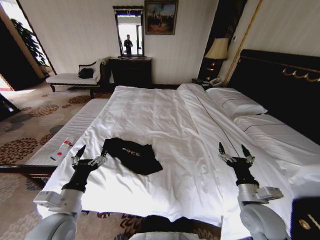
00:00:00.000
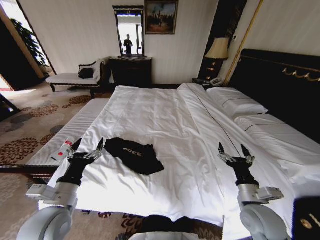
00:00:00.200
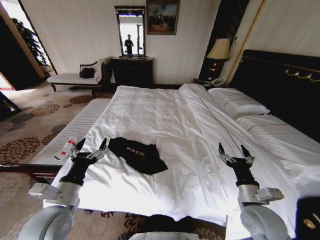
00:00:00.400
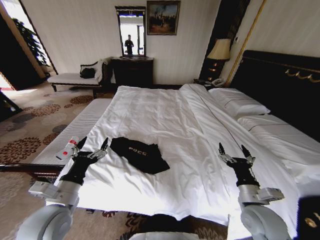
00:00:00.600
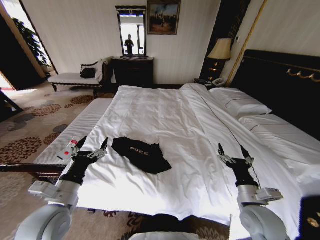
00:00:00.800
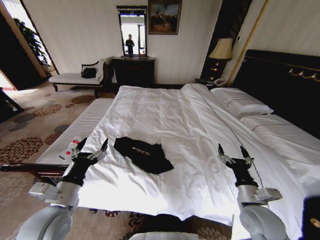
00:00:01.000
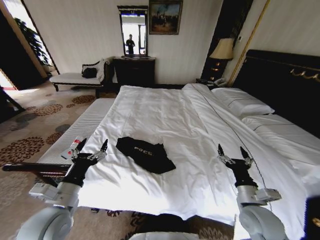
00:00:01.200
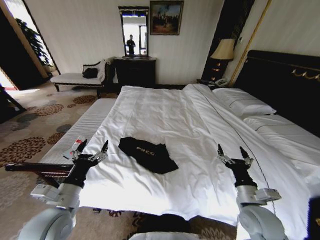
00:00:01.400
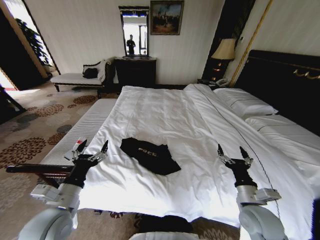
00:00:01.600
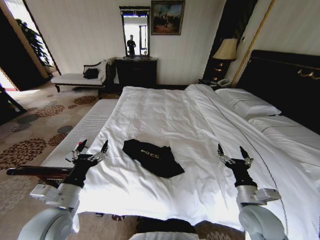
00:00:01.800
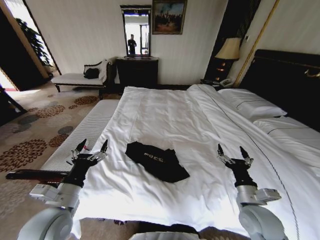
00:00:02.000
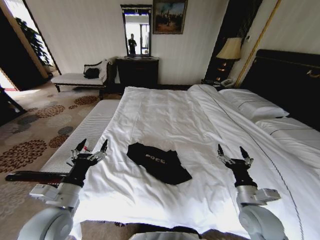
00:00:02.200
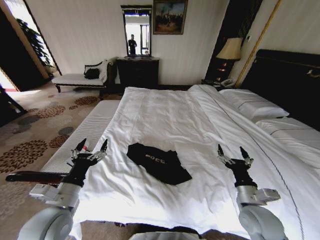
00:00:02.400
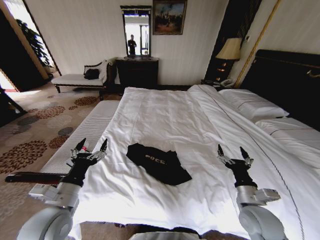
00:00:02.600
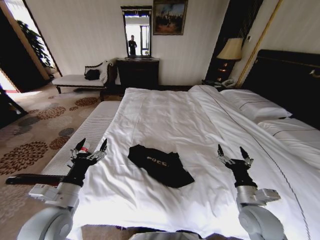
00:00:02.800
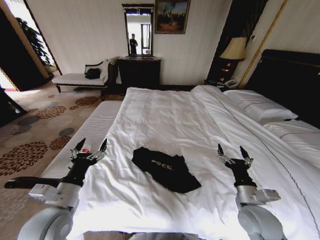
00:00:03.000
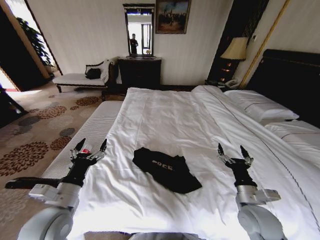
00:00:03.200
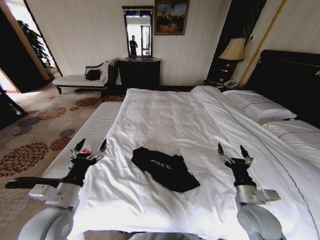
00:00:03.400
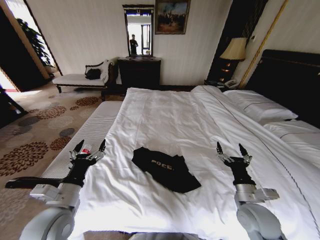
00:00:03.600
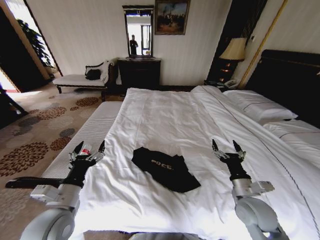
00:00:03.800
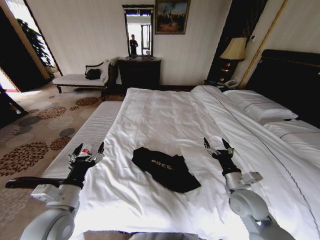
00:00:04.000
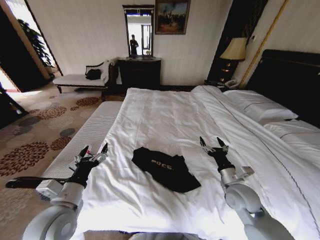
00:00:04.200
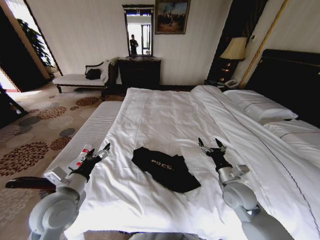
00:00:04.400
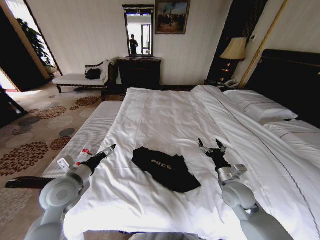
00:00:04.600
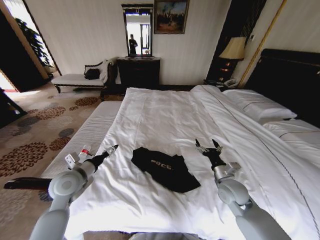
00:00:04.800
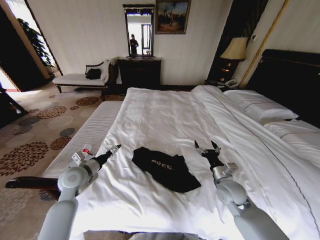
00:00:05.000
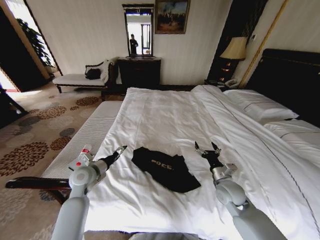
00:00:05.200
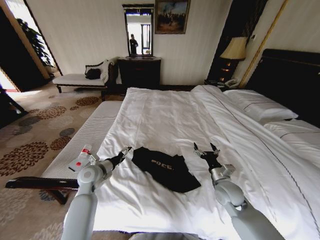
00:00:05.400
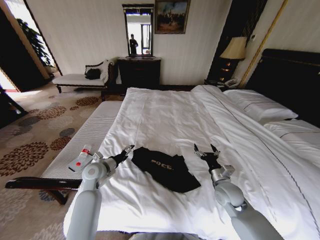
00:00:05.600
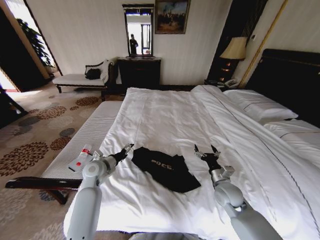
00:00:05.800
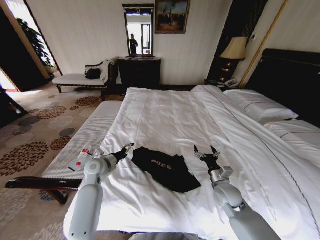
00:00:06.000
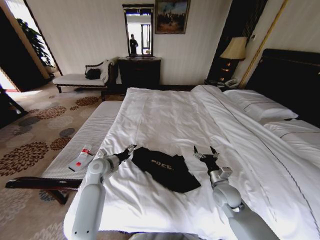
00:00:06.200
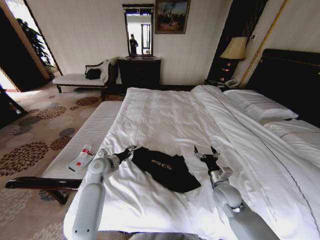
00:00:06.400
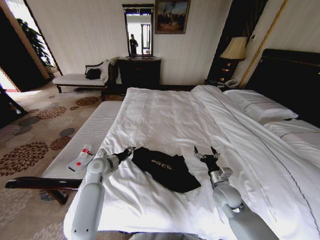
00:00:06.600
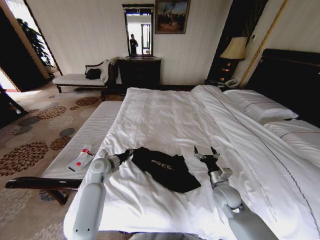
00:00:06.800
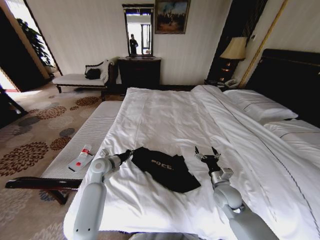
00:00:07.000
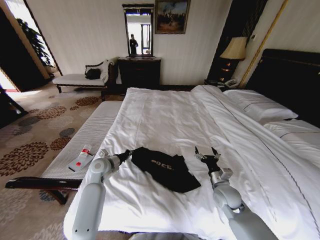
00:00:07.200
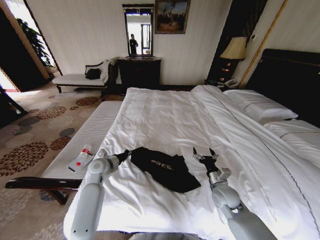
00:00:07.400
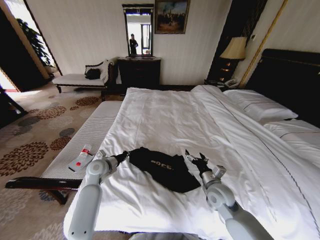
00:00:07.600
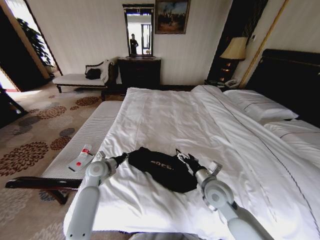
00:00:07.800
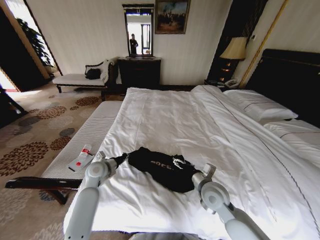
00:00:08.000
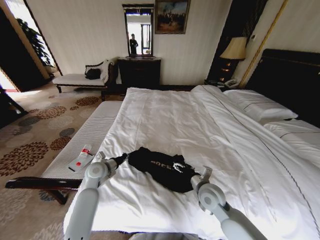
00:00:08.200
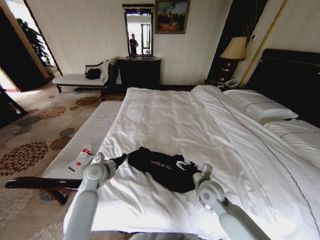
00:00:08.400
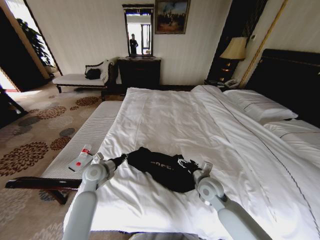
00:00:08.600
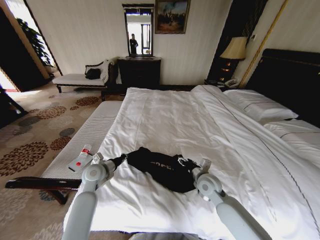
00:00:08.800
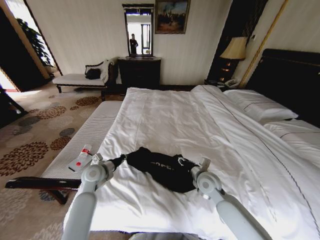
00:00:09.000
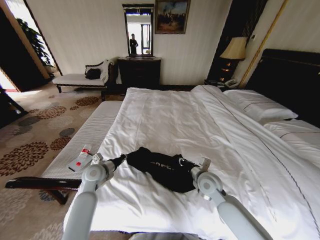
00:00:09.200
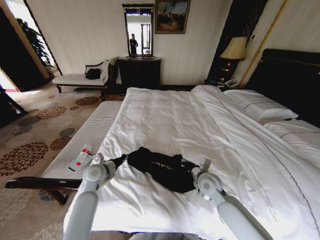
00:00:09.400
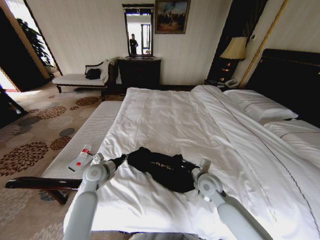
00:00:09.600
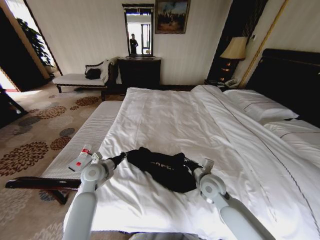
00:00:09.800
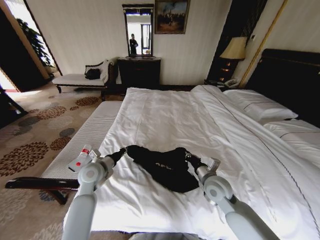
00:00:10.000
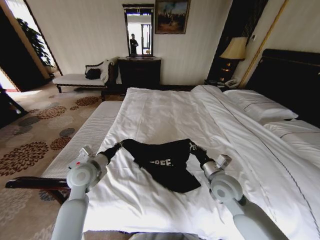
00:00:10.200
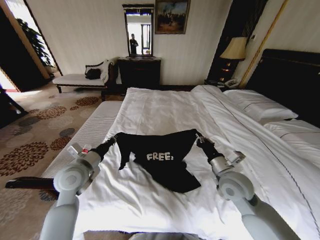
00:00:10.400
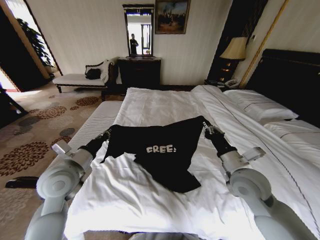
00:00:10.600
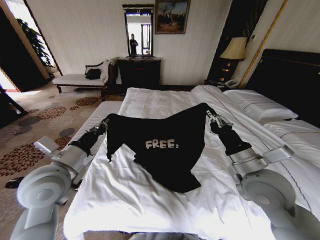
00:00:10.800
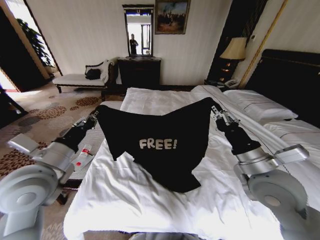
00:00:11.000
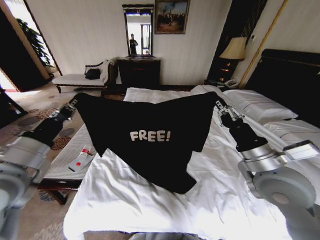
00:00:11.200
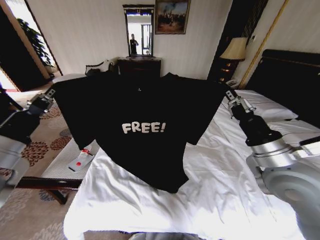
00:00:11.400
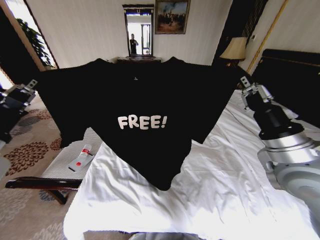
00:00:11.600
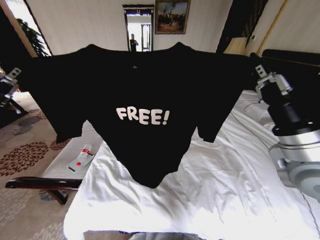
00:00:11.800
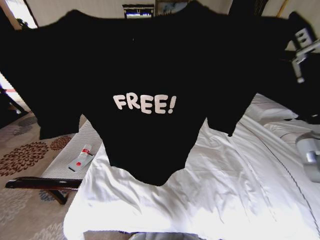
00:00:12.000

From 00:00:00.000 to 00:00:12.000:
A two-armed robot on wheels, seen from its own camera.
Task of the whole recording: Fold the clothes on the bed.
From 00:00:03.000 to 00:00:04.400: The right gripper shifts some 10 cm forward.
From 00:00:04.400 to 00:00:06.000: The right gripper shifts approximately 5 cm downward, while the left gripper travels forward and downward by about 20 cm.
From 00:00:06.000 to 00:00:07.600: The left gripper closes its fingers.
From 00:00:07.600 to 00:00:09.000: The right gripper ends up some 5 cm from where it was, and closes its fingers.
From 00:00:09.000 to 00:00:10.400: The left gripper shifts approximately 10 cm upward and backward; the right gripper goes about 10 cm upward, and closes up.
From 00:00:10.400 to 00:00:12.000: The right gripper heads upward, covering approximately 20 cm. Meanwhile the left gripper travels upward, backward and to the left by approximately 25 cm.

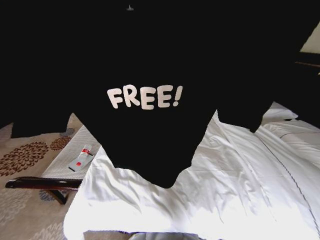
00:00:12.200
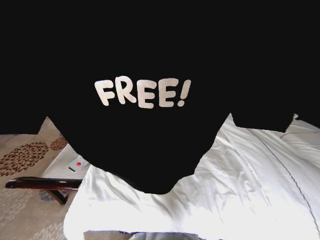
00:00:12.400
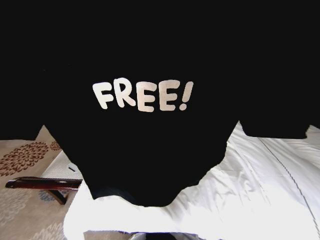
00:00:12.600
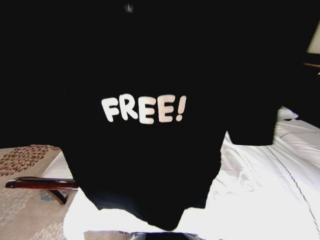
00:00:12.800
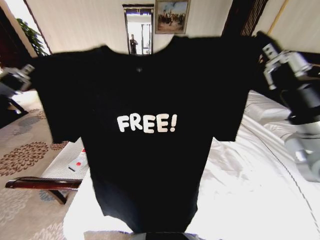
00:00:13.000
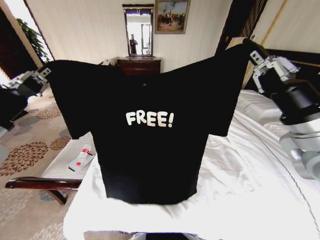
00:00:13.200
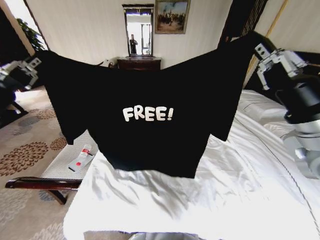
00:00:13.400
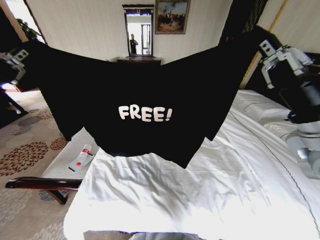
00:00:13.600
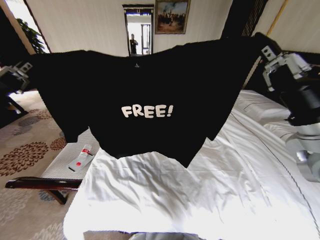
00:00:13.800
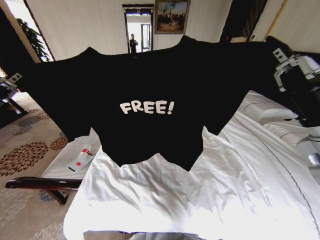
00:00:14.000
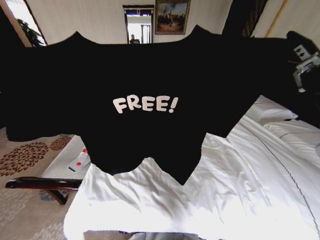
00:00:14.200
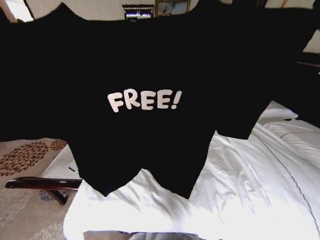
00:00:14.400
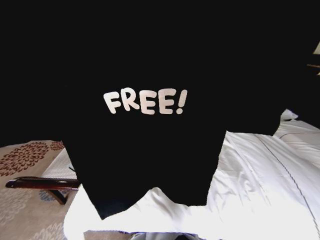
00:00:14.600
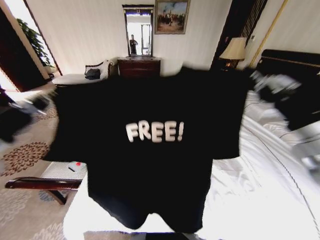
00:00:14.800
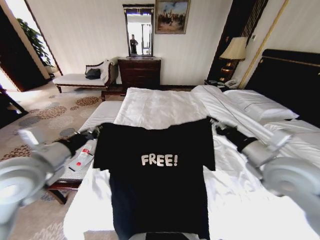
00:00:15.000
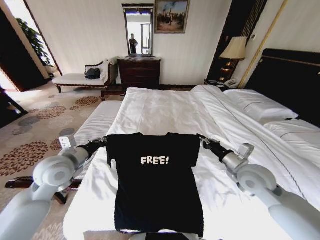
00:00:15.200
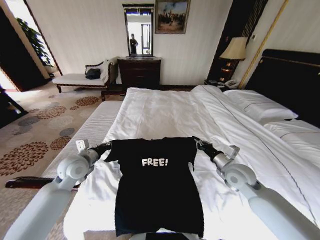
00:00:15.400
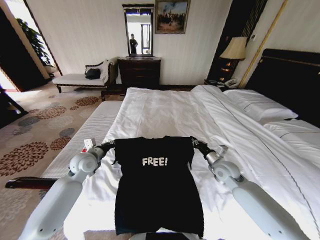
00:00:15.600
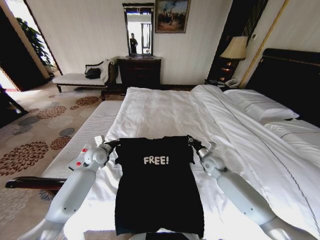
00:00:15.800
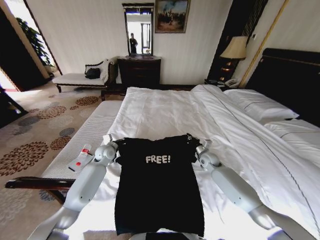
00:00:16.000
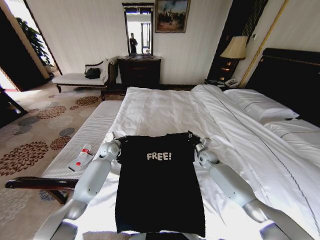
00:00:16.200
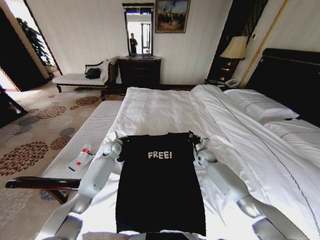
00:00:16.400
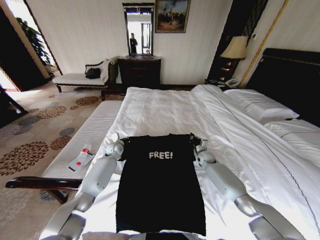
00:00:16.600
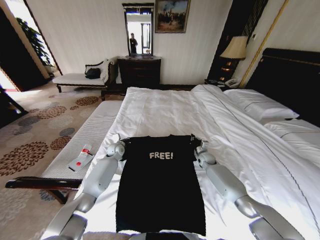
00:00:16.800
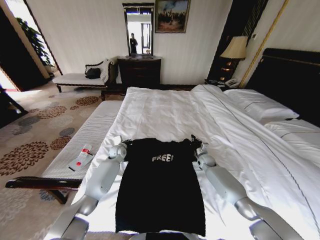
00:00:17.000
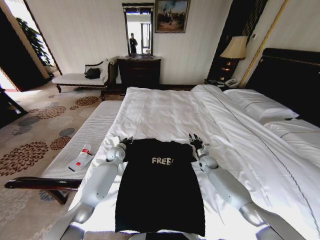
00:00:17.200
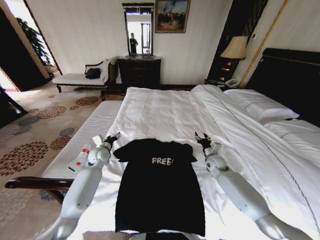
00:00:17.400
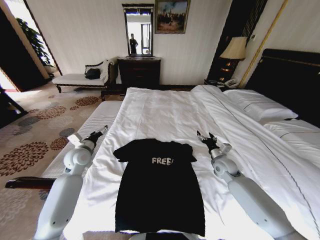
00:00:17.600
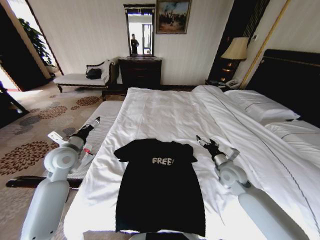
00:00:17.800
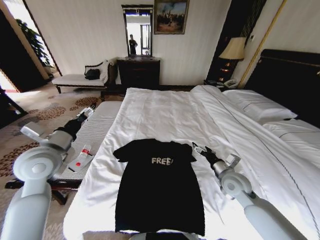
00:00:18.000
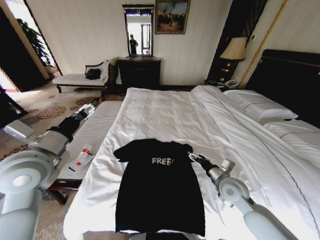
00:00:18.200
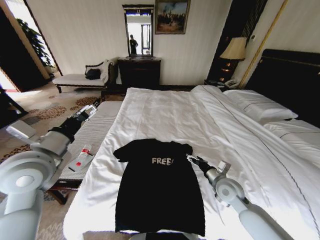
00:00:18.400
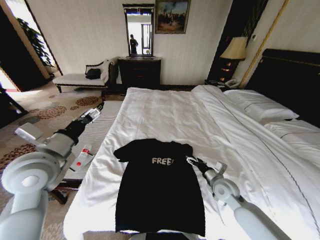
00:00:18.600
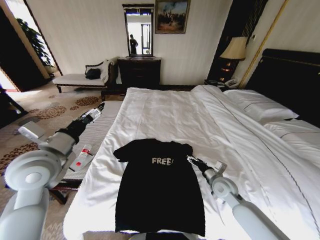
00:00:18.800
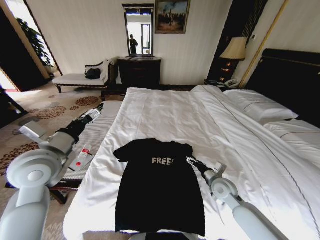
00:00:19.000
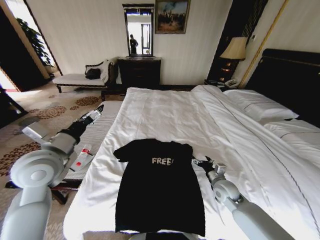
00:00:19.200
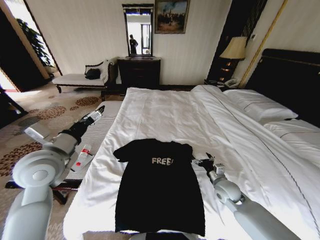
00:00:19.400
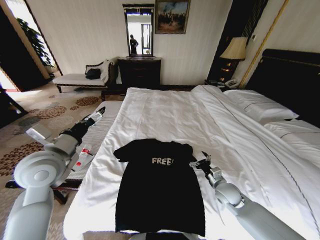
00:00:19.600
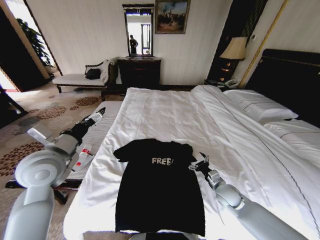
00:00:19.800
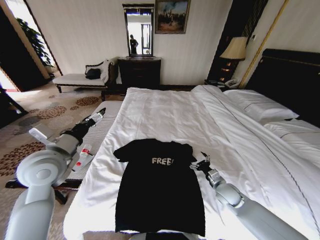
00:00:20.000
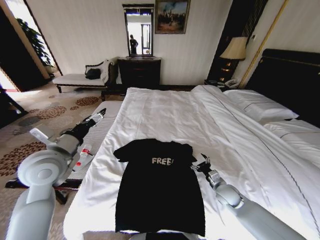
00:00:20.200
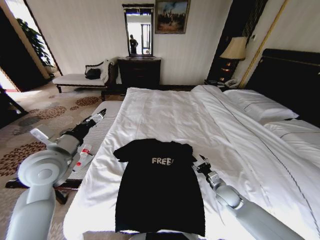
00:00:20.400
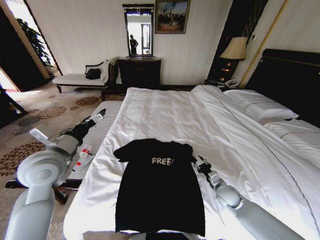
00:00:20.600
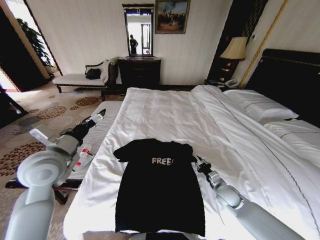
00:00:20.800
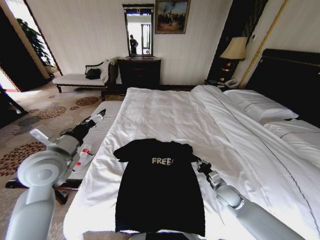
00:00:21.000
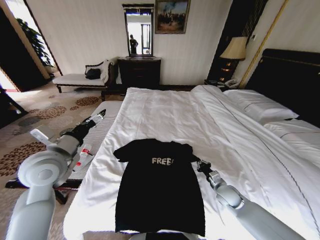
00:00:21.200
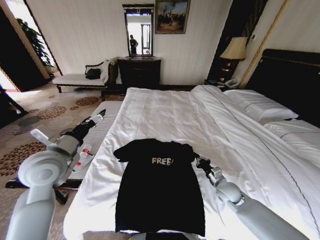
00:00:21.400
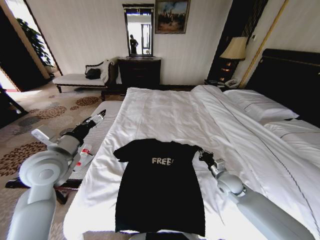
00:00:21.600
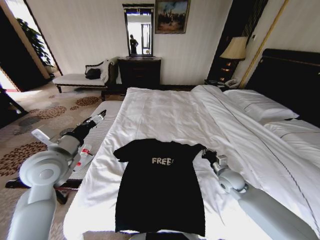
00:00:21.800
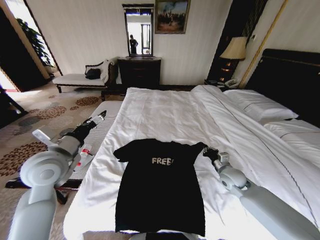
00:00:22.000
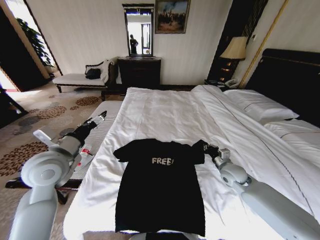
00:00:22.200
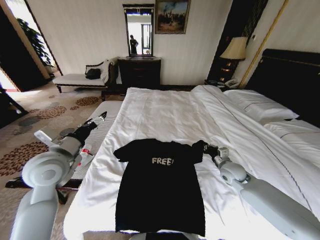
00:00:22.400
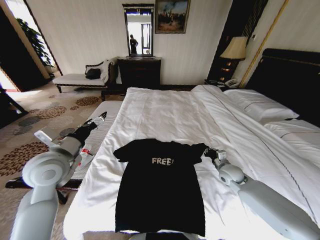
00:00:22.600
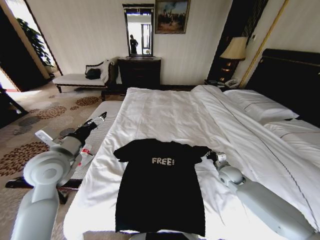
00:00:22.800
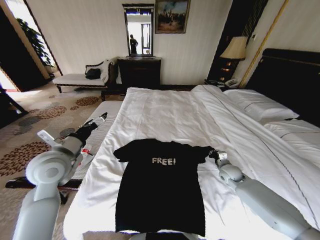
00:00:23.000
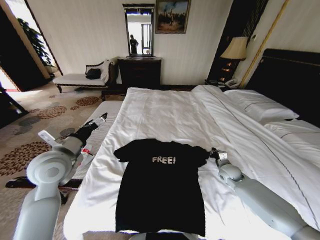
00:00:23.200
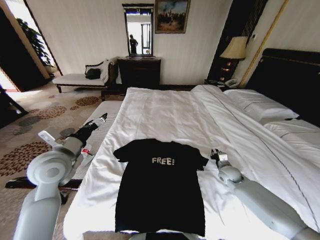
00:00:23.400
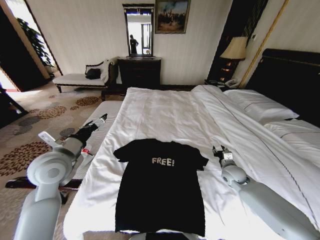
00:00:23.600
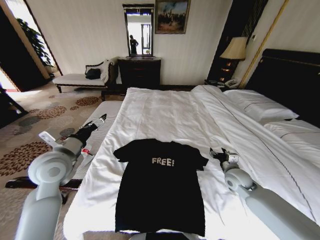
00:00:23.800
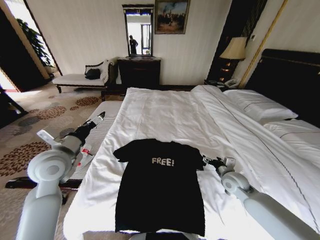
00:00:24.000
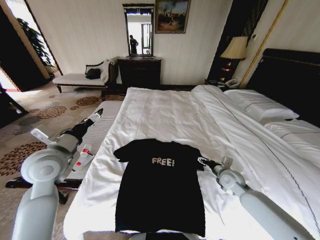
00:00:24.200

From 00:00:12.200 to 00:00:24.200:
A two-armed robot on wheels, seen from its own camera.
Task of the whole recording: Fold the clothes on the bed.
From 00:00:13.800 to 00:00:15.200: The right gripper goes roughly 20 cm downward. The left gripper is displaced downward and forward by roughly 20 cm.
From 00:00:15.200 to 00:00:16.600: Both grippers travel together forward and downward, roughly 30 cm.
From 00:00:16.600 to 00:00:18.200: Both grippers move backward and upward, roughly 30 cm. The left gripper opens. Meanwhile the right gripper opens up.
From 00:00:18.200 to 00:00:19.800: The right gripper heads downward, covering approximately 10 cm.
From 00:00:19.800 to 00:00:21.200: The right gripper closes up.
From 00:00:21.200 to 00:00:22.600: The right gripper is displaced forward and upward by about 10 cm.
From 00:00:22.600 to 00:00:24.200: The right gripper opens.
